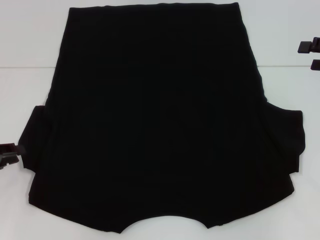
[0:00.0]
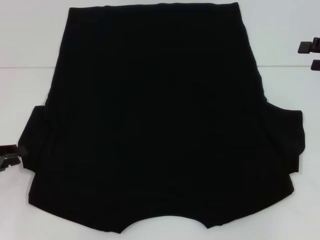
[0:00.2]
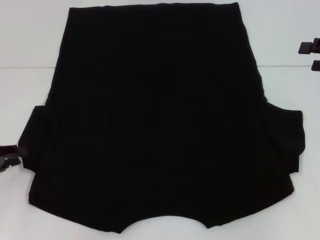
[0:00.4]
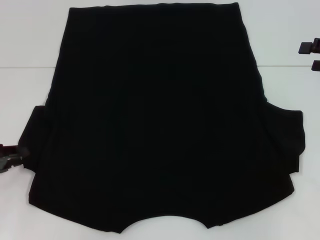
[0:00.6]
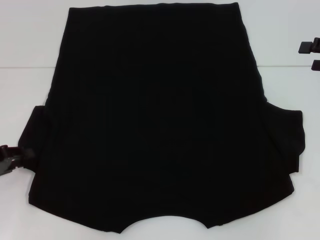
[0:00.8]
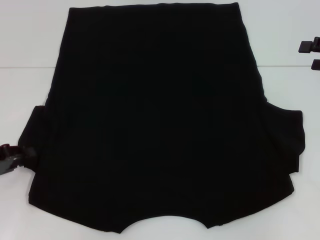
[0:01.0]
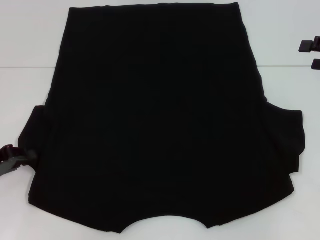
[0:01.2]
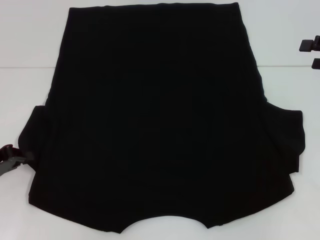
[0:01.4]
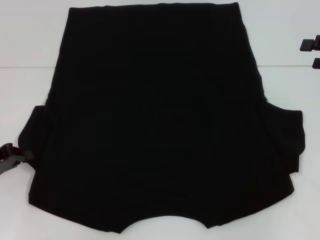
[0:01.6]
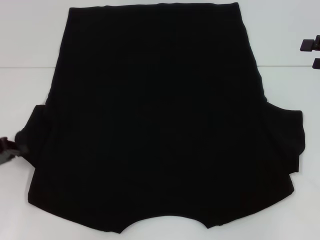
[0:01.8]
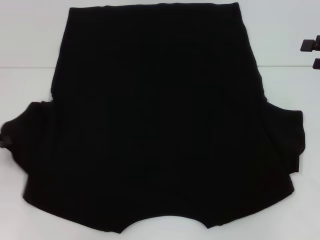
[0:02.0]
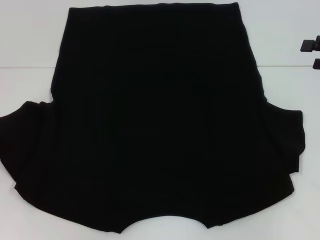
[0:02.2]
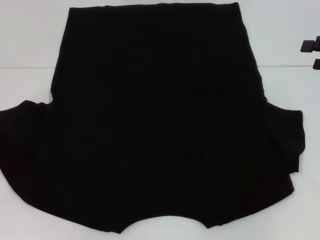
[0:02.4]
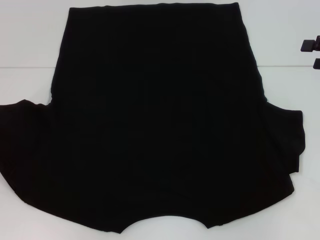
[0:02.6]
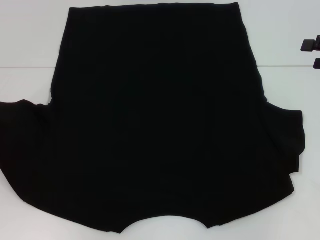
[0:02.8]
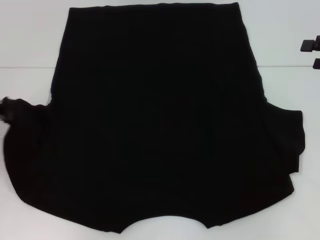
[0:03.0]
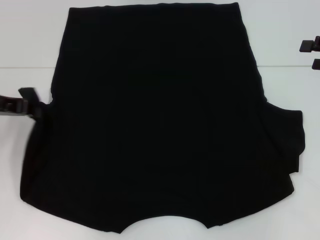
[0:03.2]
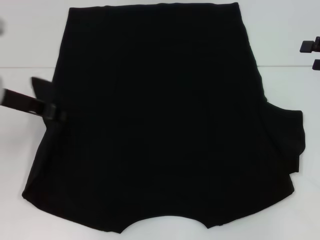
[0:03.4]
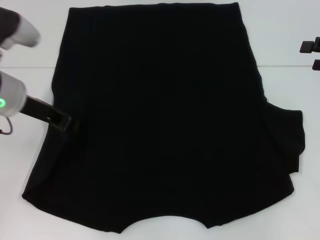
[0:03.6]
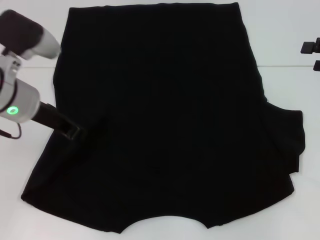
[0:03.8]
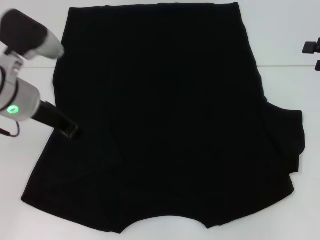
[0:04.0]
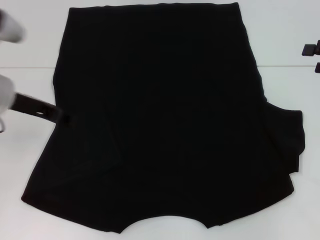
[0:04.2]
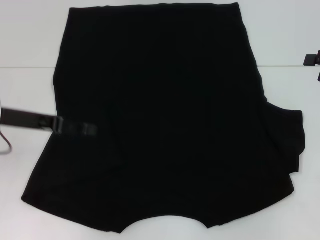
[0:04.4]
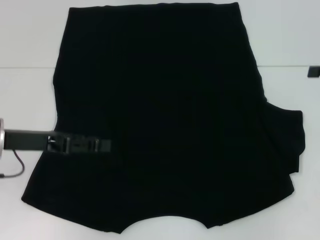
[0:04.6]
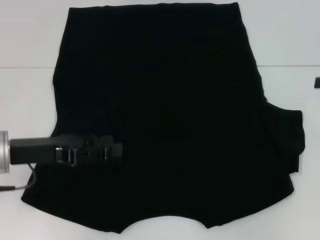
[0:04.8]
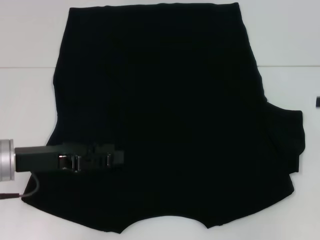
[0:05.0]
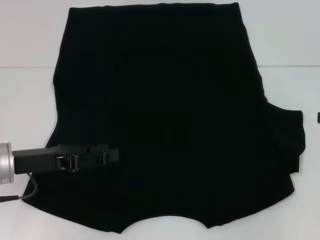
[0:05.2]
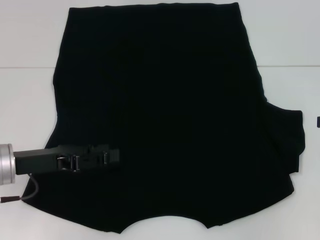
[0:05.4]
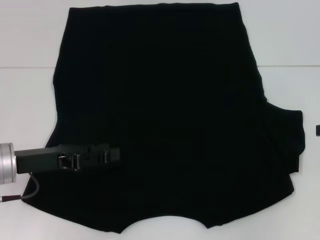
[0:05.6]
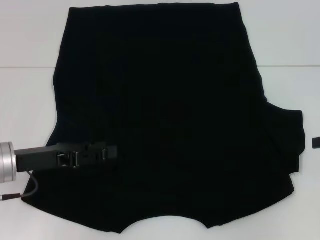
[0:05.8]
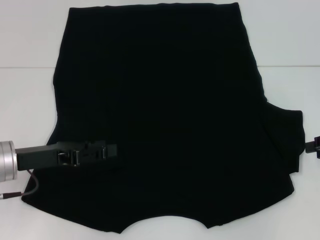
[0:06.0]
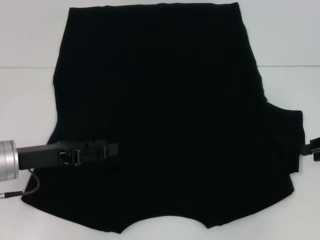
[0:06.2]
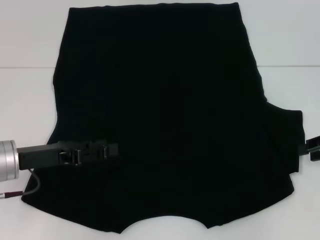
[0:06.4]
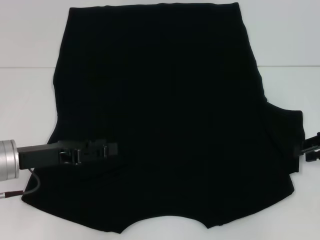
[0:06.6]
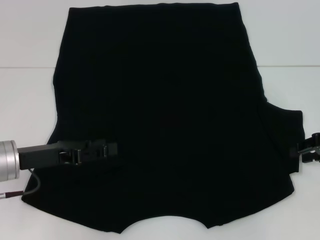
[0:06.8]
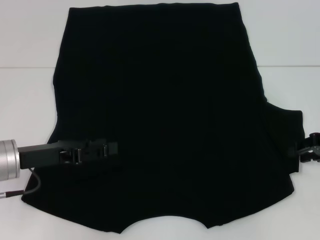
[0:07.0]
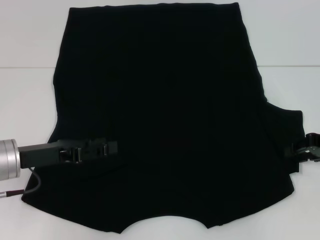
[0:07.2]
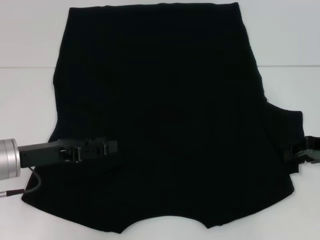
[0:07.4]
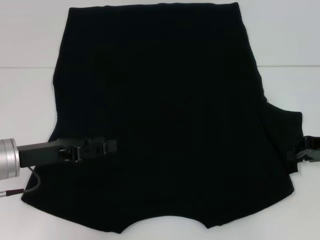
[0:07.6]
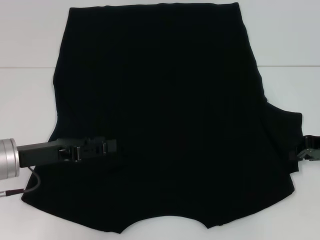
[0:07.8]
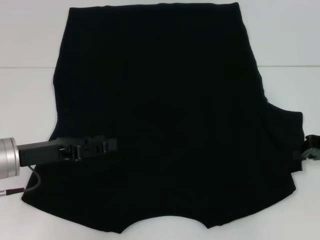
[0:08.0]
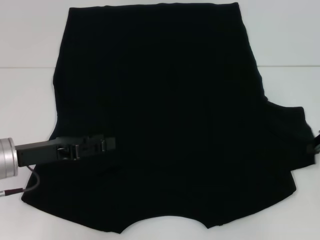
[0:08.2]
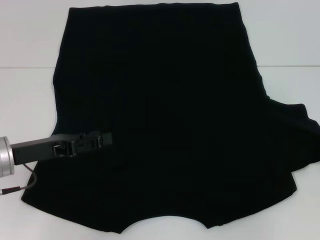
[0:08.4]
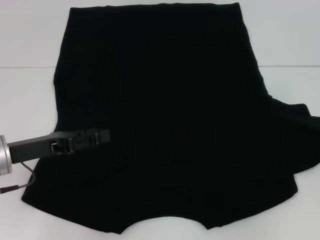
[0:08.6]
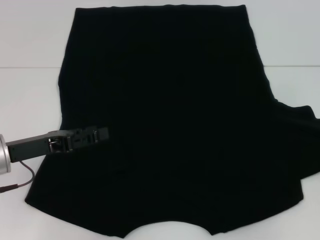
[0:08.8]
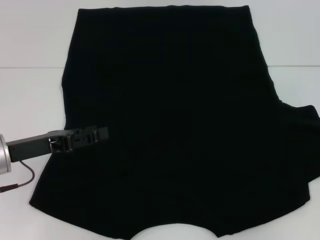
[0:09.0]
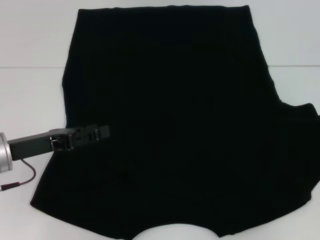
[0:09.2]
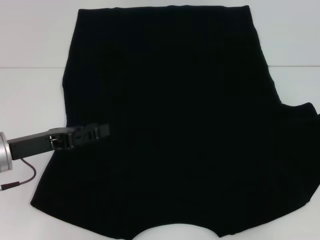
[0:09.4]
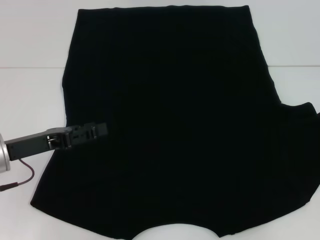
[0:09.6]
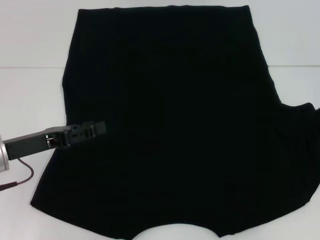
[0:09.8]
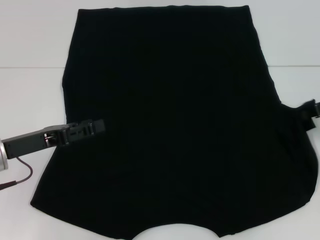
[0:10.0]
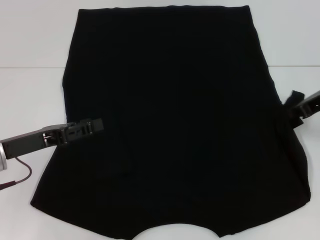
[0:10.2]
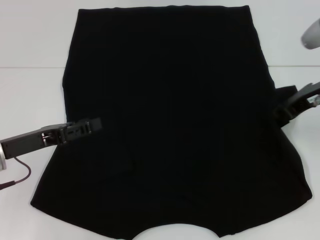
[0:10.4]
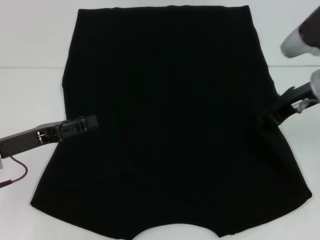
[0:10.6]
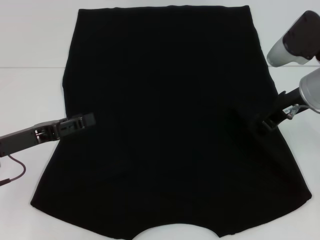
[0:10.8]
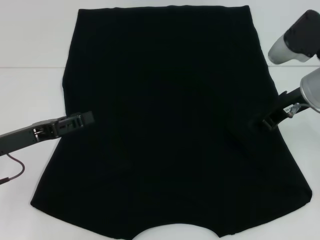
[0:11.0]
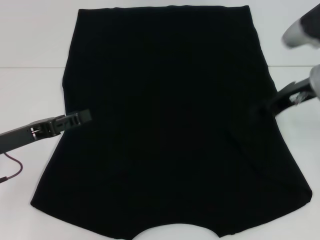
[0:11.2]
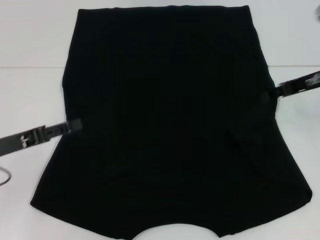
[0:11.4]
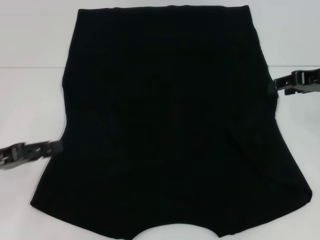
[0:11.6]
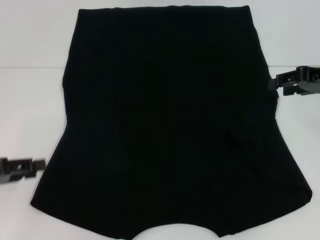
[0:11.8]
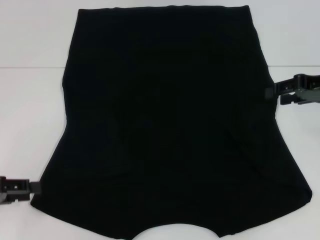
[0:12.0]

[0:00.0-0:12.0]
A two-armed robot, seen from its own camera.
Step, 0:00.0 to 0:04.6: Fold the bottom left sleeve with your left hand.
Step, 0:04.8 to 0:10.8: Fold the bottom right sleeve with your right hand.
0:00.0 to 0:01.6: The left gripper closes.
0:01.6 to 0:03.0: The left gripper is displaced upward and forward by about 10 cm.
0:03.0 to 0:04.4: The left gripper goes approximately 10 cm to the right, and opens its fingers.
0:04.4 to 0:06.0: The left gripper is displaced downward by approximately 5 cm.
0:06.0 to 0:07.6: The right gripper changes place by some 5 cm.
0:07.6 to 0:09.0: The right gripper travels to the right by approximately 10 cm, and closes.
0:09.0 to 0:10.4: The right gripper travels to the left and forward by approximately 15 cm.
0:10.4 to 0:12.0: The right gripper opens its fingers. The left gripper travels to the left by approximately 10 cm.

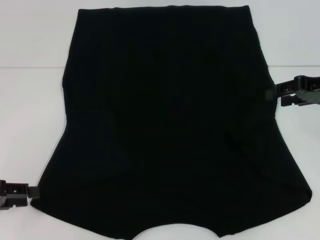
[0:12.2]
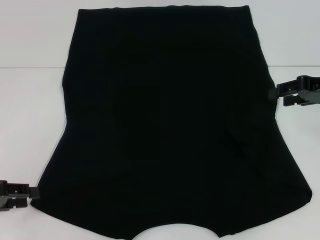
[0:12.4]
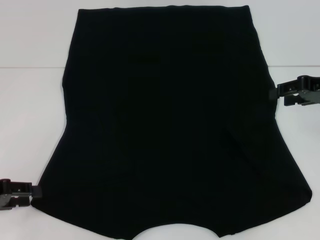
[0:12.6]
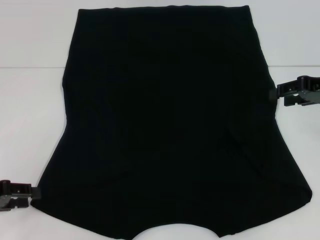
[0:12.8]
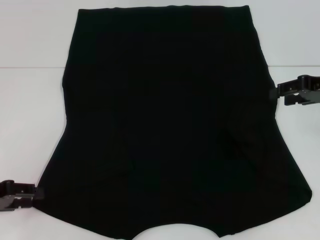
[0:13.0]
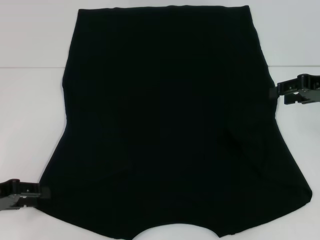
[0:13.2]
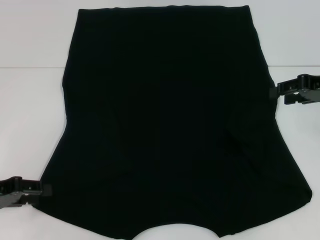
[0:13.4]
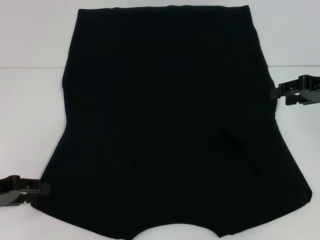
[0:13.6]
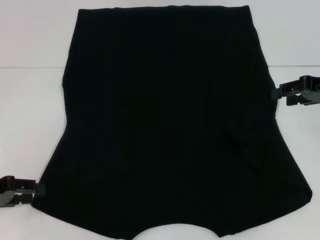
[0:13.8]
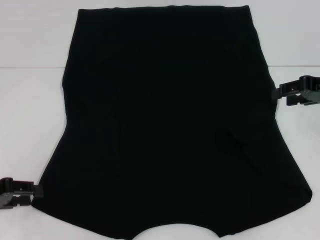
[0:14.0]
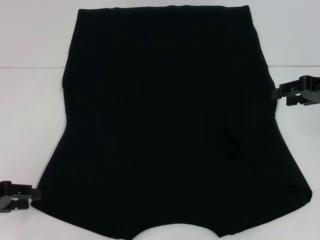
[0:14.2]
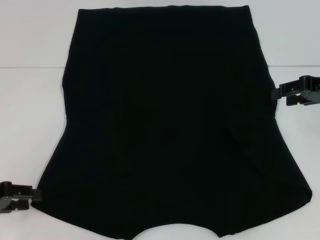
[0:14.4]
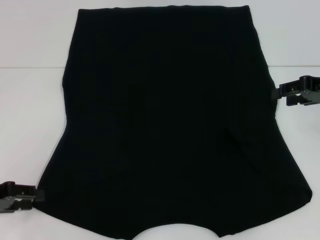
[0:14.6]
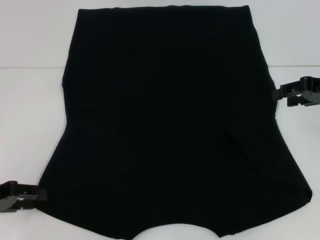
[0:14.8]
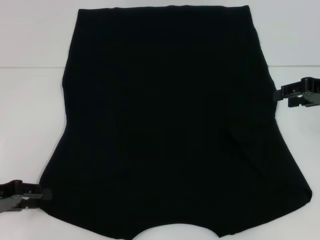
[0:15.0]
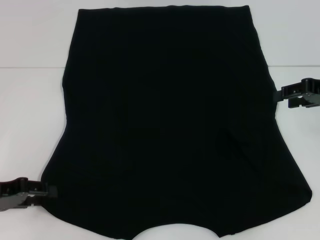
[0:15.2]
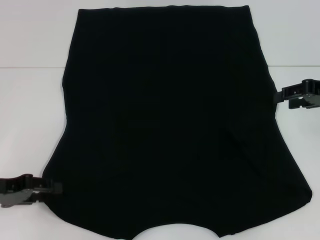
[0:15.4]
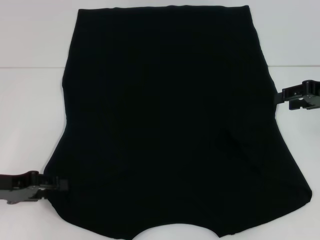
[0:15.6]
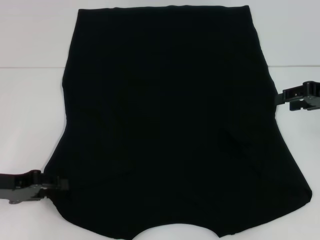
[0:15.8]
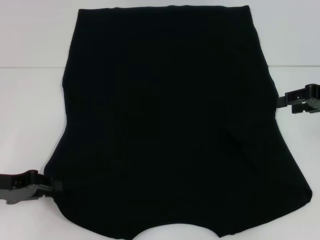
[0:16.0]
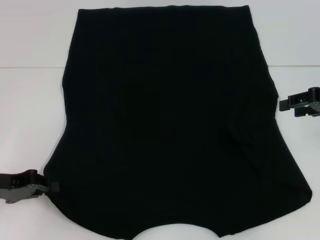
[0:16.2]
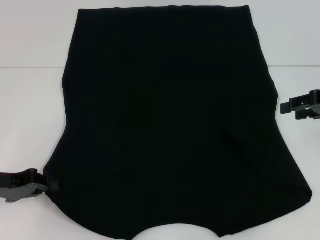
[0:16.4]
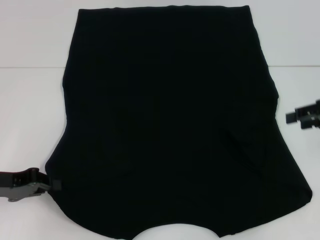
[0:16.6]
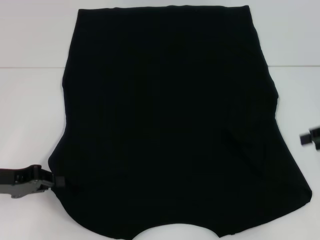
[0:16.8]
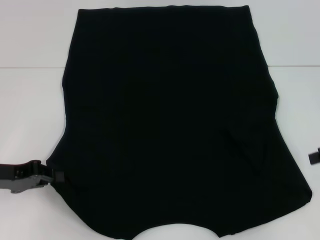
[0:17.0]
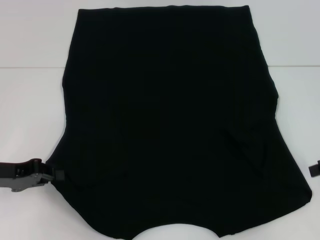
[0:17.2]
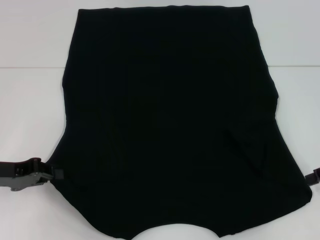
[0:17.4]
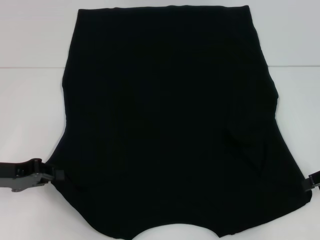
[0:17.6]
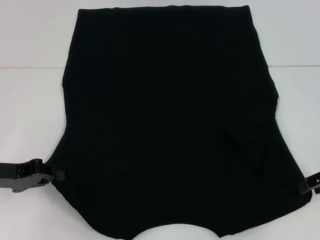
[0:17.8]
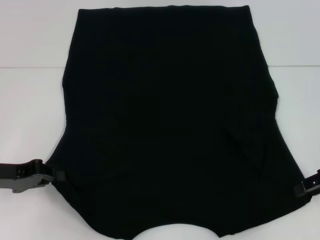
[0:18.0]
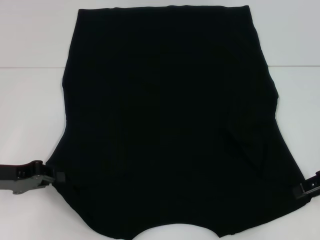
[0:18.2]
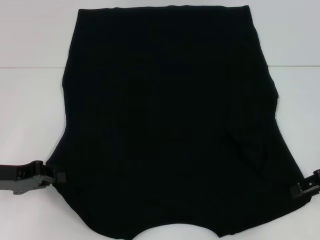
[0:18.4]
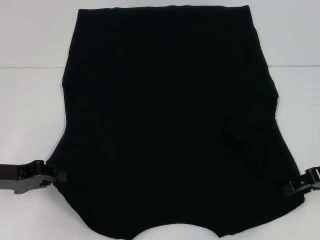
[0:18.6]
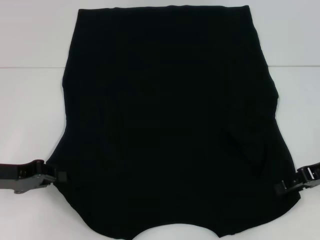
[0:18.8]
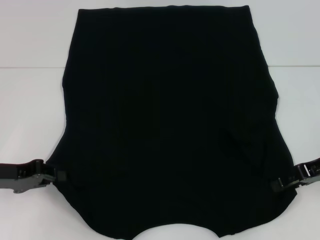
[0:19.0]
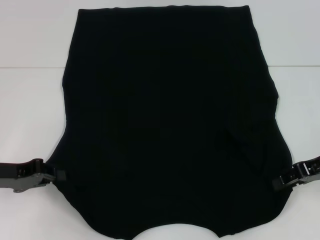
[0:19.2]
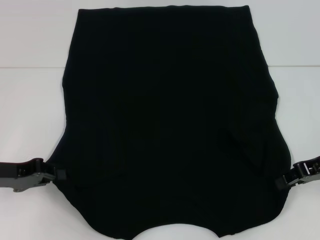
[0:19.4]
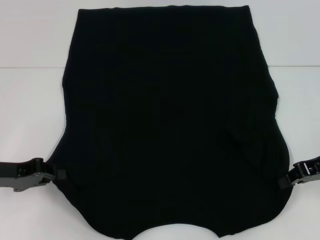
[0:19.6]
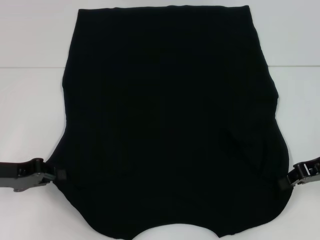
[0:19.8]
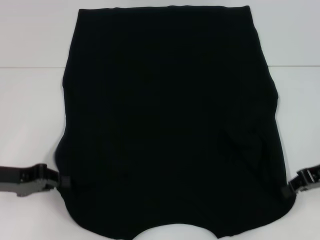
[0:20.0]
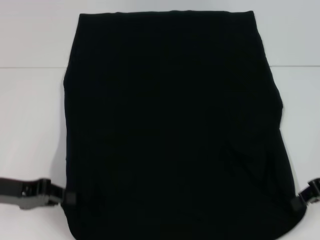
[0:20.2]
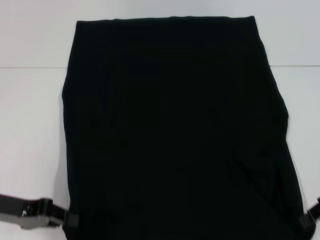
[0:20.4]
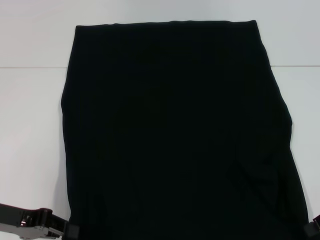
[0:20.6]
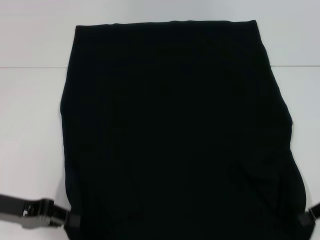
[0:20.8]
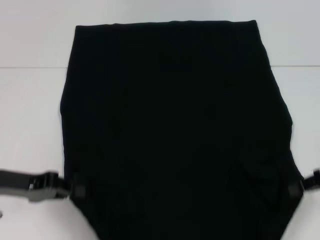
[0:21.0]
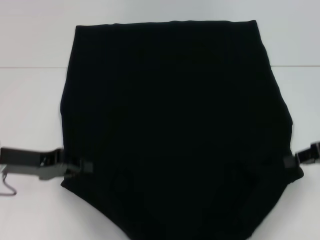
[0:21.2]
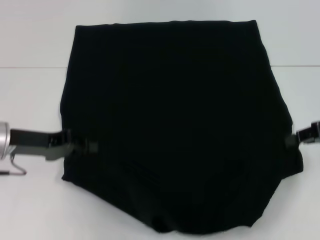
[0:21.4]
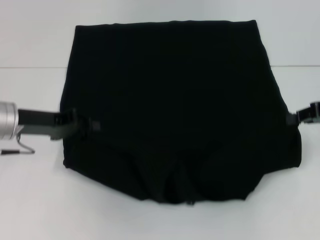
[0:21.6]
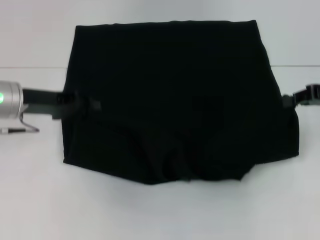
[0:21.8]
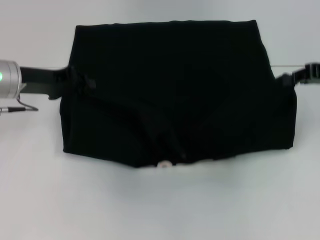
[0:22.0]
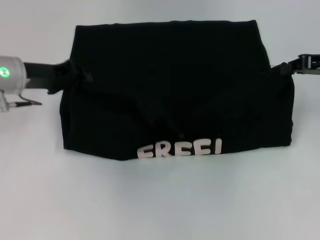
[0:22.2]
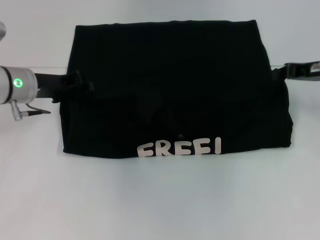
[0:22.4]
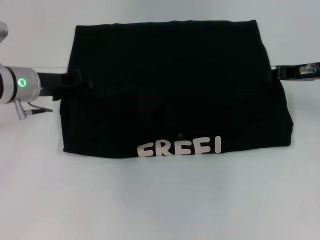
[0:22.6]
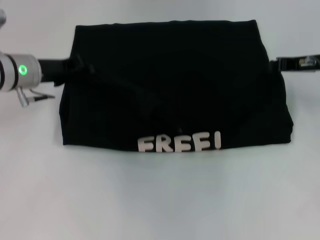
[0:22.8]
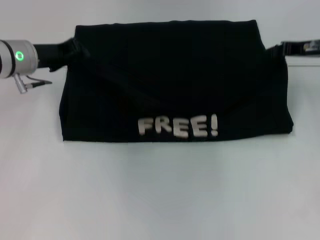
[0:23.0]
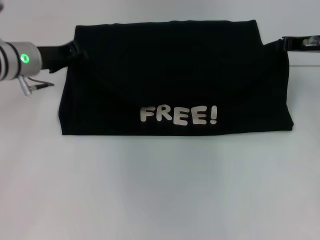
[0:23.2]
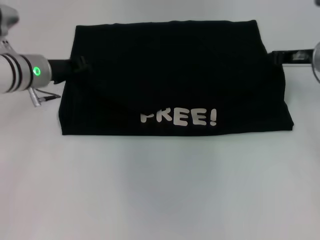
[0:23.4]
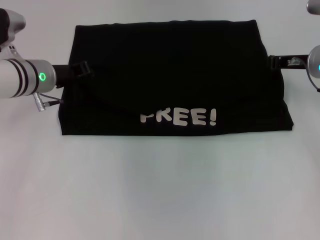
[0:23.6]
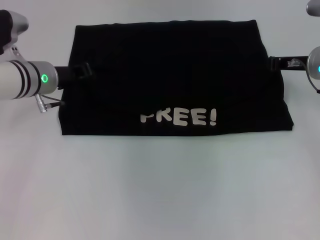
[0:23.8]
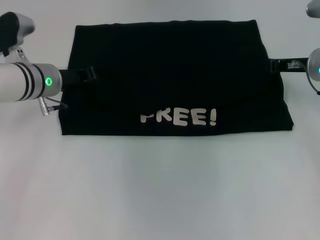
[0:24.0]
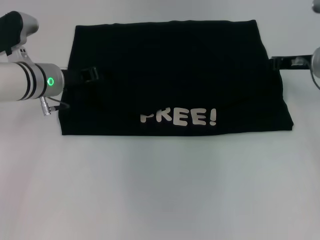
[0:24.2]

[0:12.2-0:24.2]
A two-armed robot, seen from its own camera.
Step, 0:12.2 to 0:16.8: Grab the bottom left corner with your left hand.
Step, 0:17.0 to 0:20.0: Grab the bottom right corner with your right hand.
0:12.2 to 0:15.2: The grippers move only a little.
0:15.2 to 0:16.6: The left gripper closes up.
0:16.6 to 0:18.2: The right gripper ends up about 5 cm from where it was.
0:18.2 to 0:19.8: The right gripper closes its fingers.
0:19.8 to 0:21.2: The grippers stay close to where they were, moving slightly.
0:21.2 to 0:22.6: Both grippers travel together forward, approximately 10 cm.
0:22.6 to 0:24.2: The grippers move only a little.
